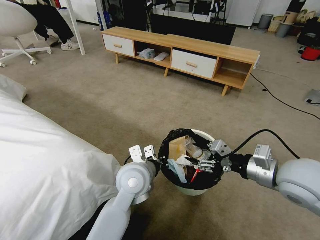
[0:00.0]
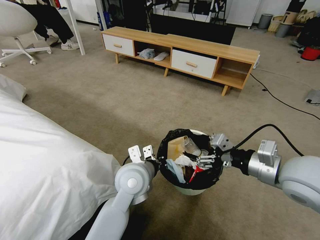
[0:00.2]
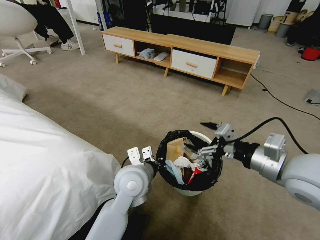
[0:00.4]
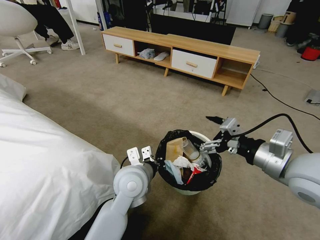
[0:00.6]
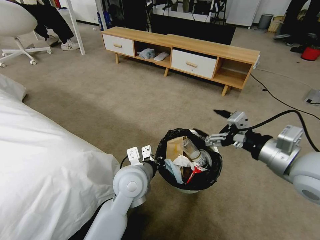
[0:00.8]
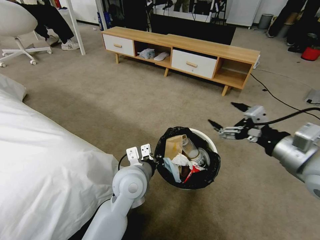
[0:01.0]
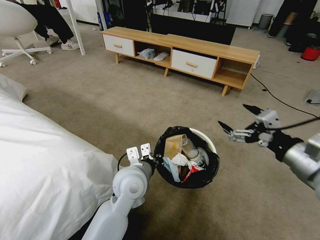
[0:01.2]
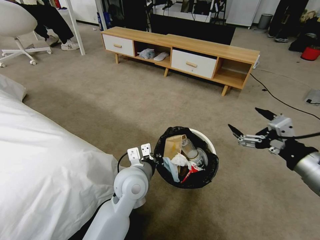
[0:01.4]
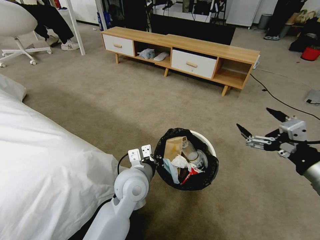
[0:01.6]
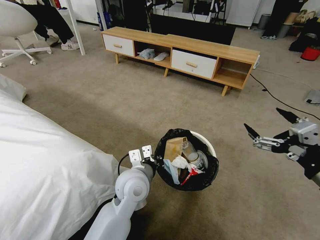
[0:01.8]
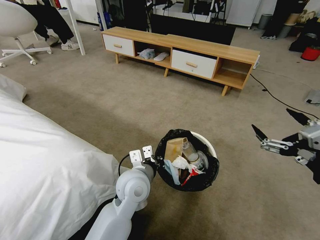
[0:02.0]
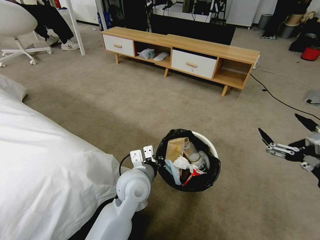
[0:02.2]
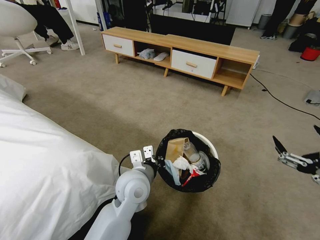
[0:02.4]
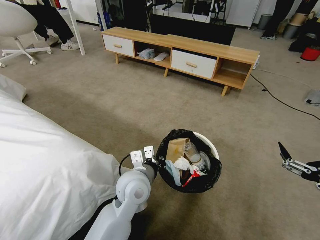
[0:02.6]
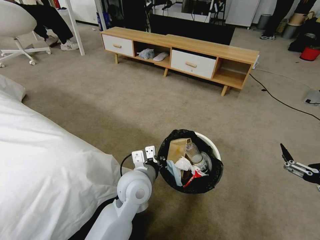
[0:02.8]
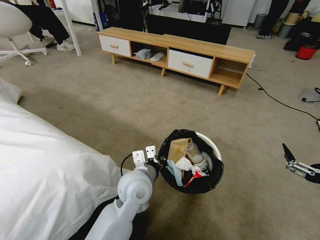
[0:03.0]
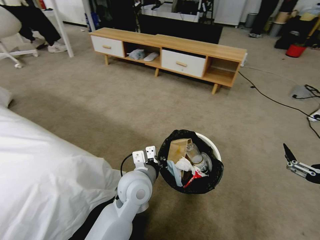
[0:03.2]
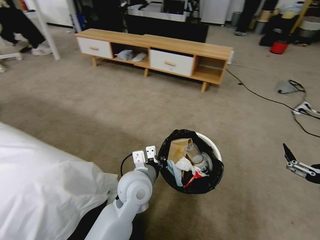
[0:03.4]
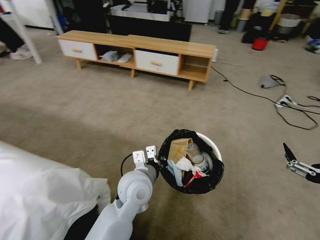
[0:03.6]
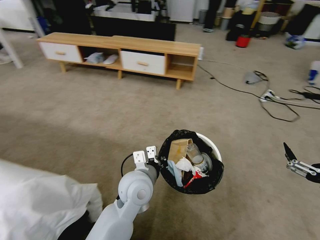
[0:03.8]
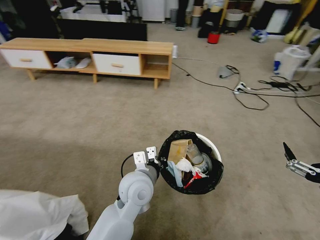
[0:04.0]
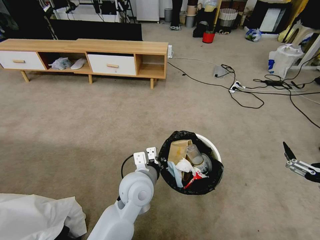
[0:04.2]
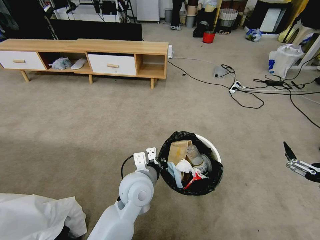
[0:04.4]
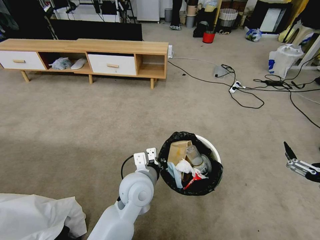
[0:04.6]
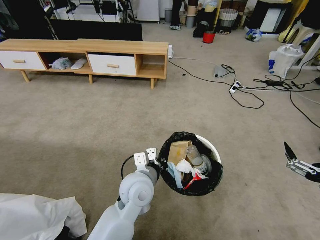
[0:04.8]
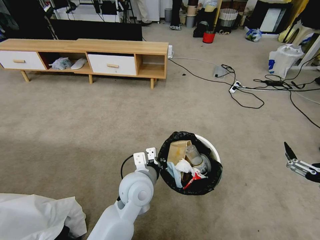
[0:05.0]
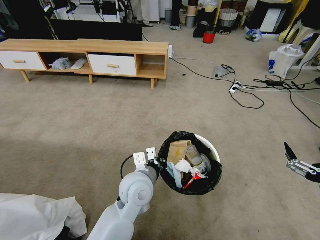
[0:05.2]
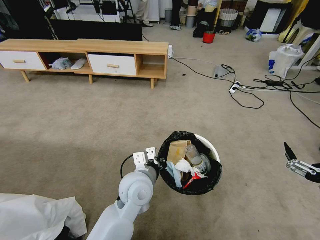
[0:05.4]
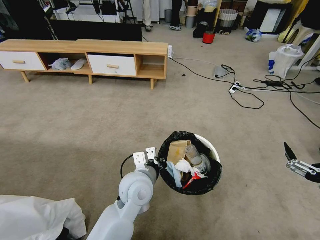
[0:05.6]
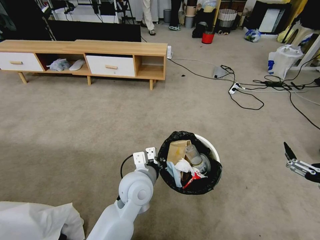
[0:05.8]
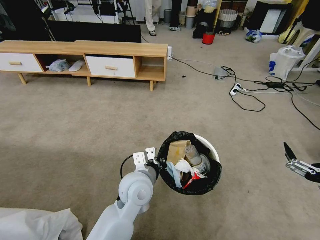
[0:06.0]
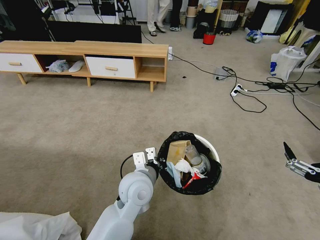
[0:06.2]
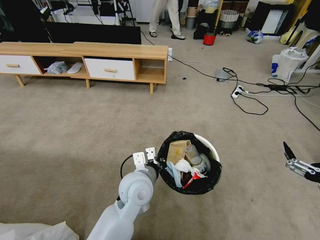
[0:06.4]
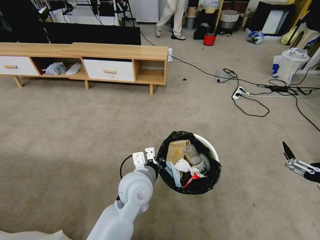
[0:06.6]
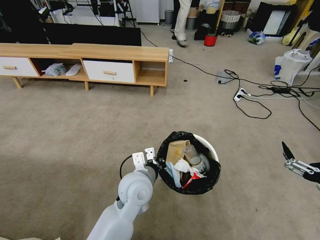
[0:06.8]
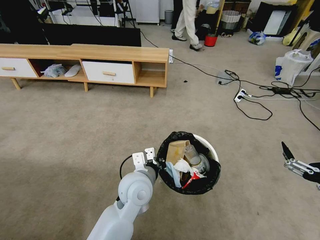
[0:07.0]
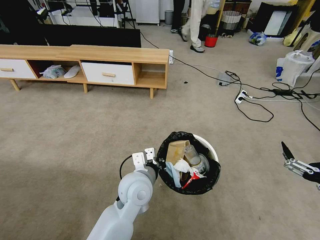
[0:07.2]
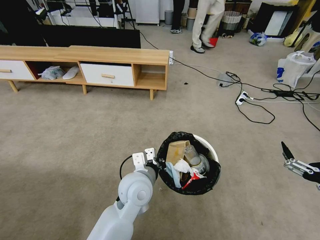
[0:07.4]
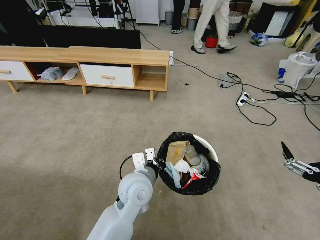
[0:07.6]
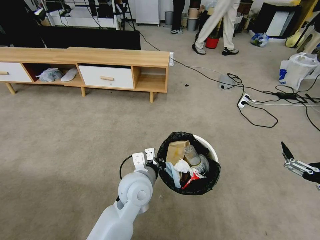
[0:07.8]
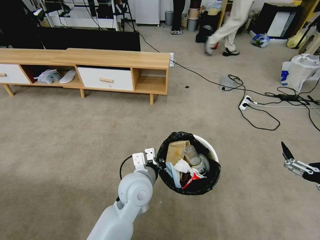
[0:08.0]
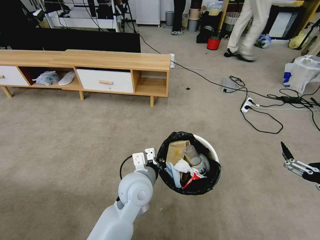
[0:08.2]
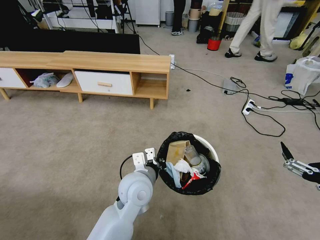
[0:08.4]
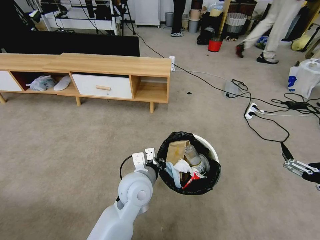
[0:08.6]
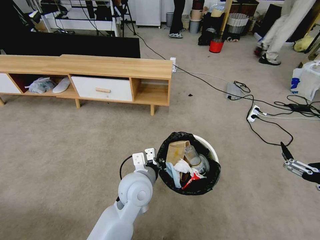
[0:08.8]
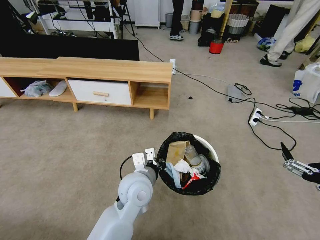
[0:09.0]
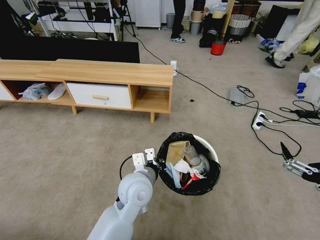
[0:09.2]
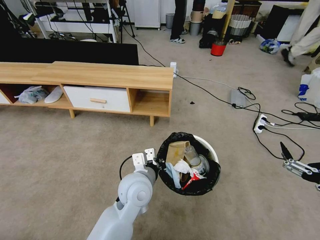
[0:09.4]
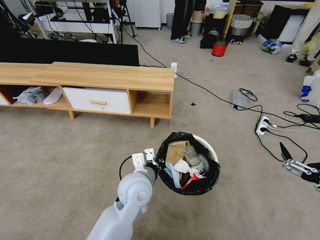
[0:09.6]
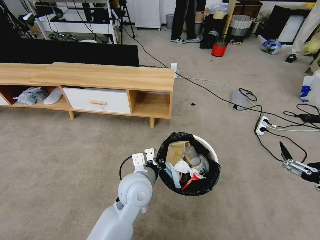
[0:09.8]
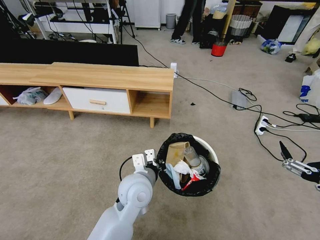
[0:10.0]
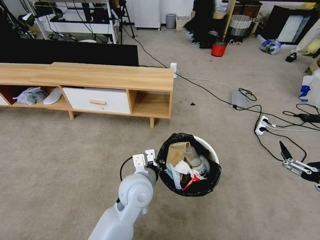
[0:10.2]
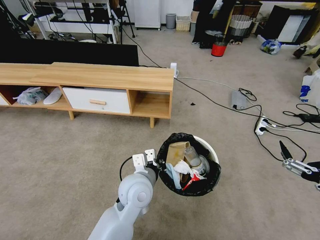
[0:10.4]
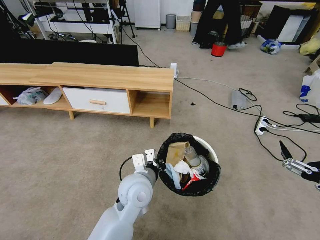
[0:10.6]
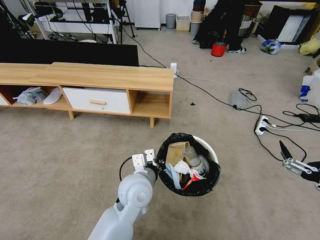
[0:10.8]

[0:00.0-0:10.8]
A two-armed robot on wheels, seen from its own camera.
Task of the whole recording: Pick up the trash bin, then pick up the garbage from the floor and place it into the trash bin.
0:00.0 to 0:01.6: The right gripper heads backward and to the right, covering approximately 10 cm, and opens.
0:01.6 to 0:03.0: The right gripper is displaced backward and downward by roughly 10 cm.
0:04.6 to 0:06.2: Both grippers stay put.
